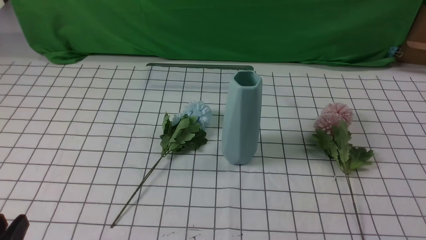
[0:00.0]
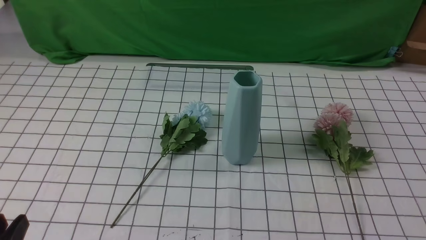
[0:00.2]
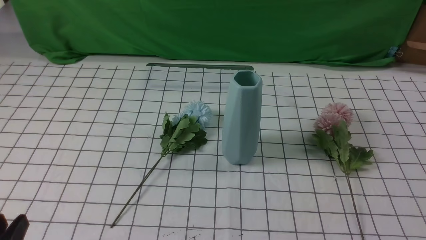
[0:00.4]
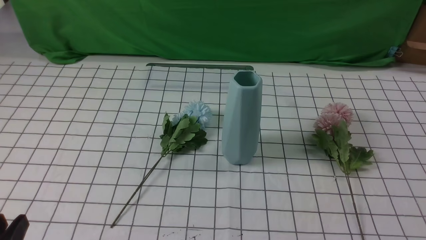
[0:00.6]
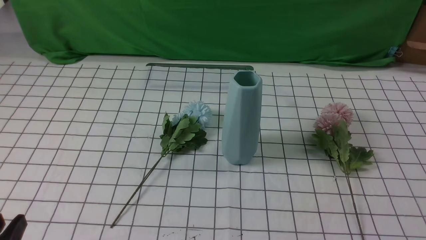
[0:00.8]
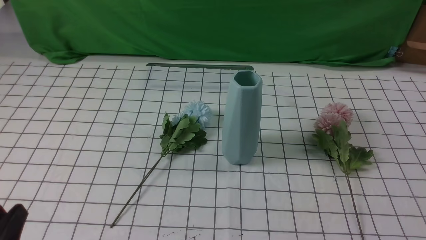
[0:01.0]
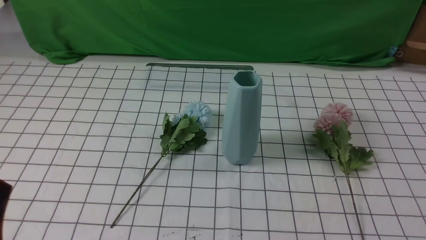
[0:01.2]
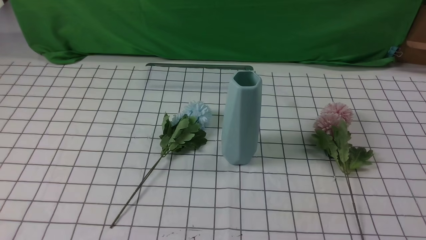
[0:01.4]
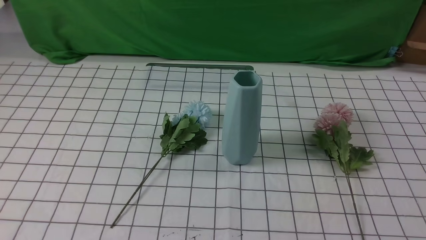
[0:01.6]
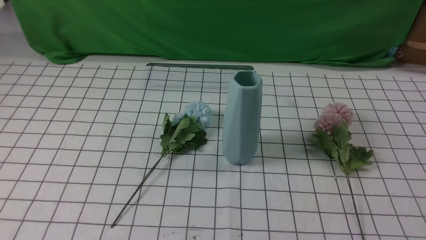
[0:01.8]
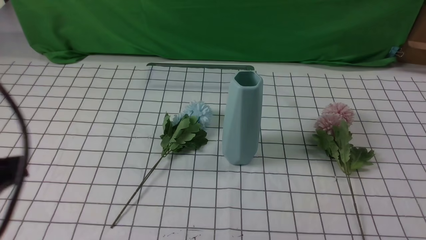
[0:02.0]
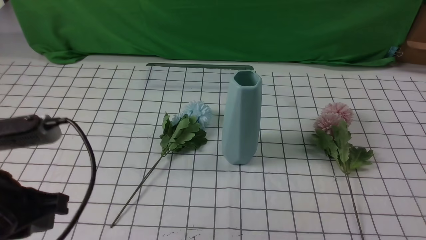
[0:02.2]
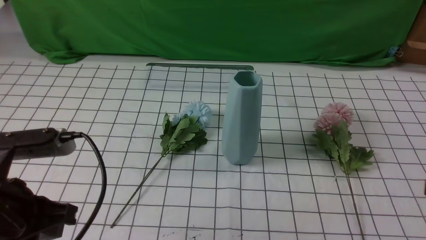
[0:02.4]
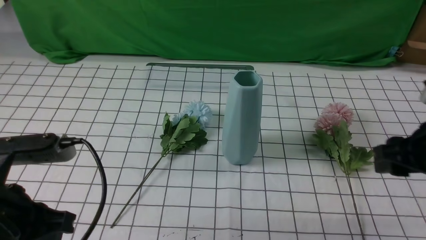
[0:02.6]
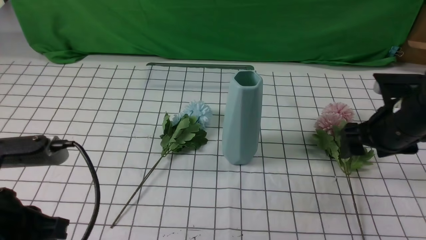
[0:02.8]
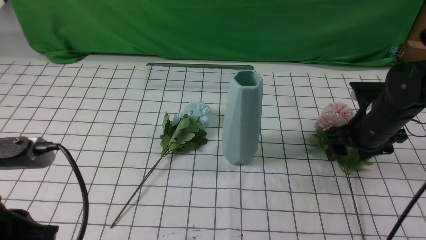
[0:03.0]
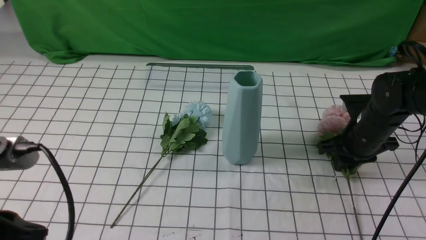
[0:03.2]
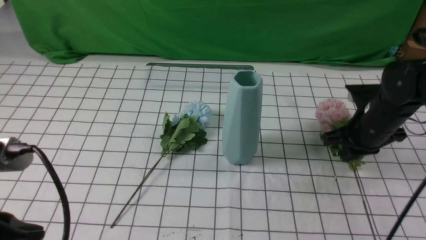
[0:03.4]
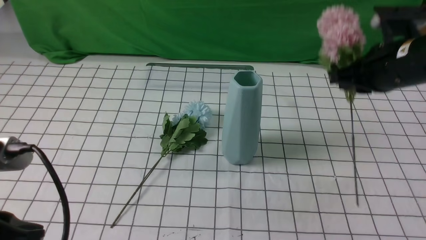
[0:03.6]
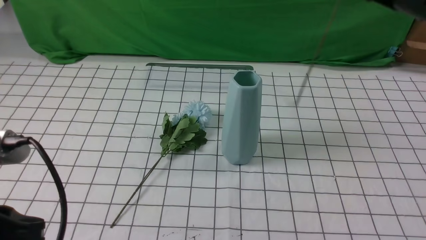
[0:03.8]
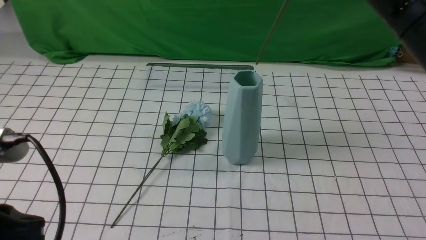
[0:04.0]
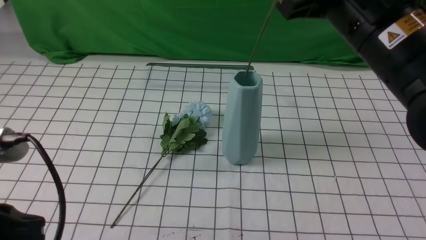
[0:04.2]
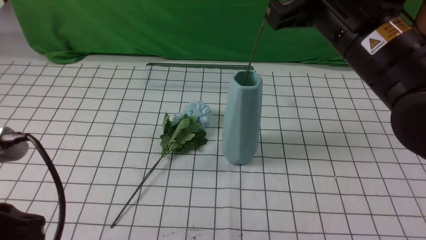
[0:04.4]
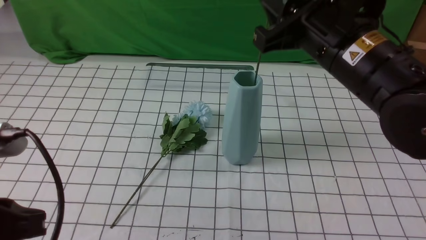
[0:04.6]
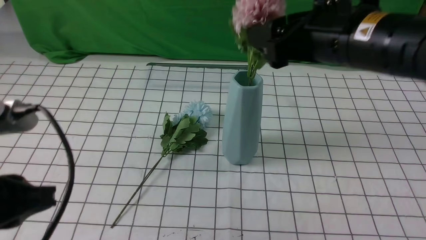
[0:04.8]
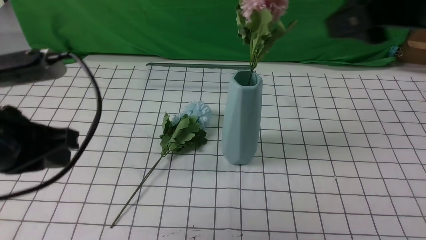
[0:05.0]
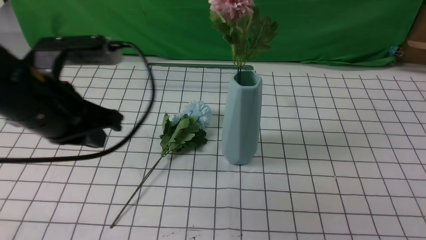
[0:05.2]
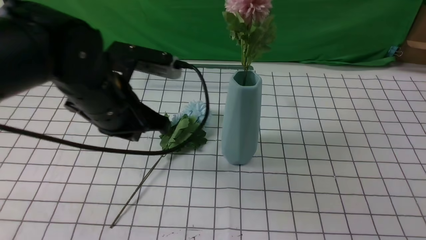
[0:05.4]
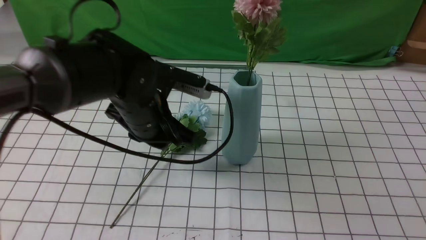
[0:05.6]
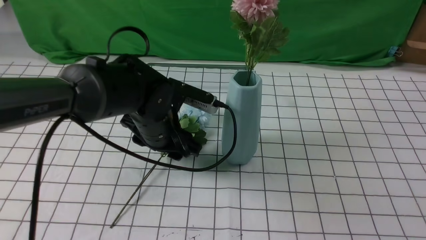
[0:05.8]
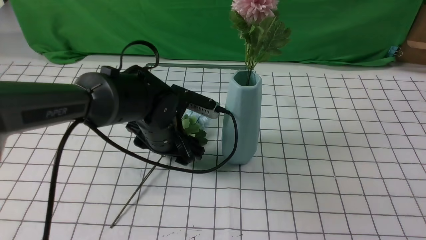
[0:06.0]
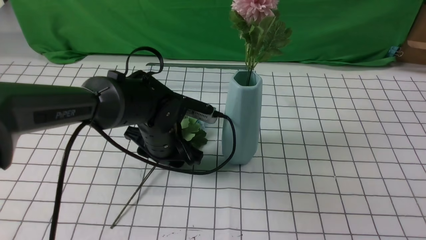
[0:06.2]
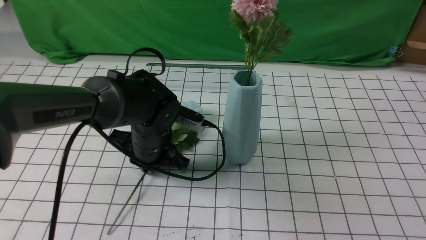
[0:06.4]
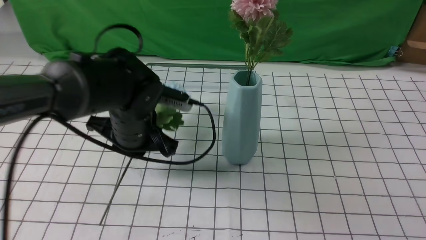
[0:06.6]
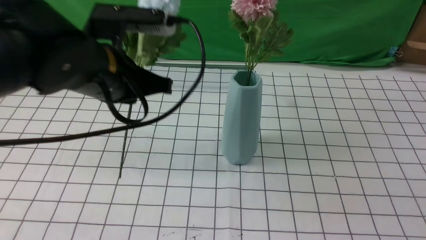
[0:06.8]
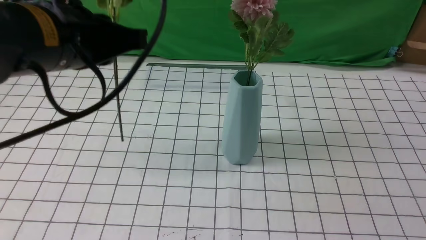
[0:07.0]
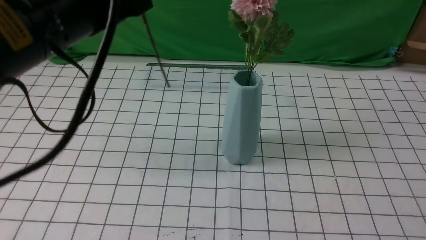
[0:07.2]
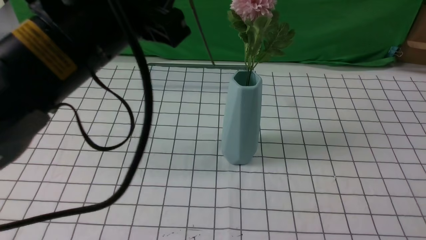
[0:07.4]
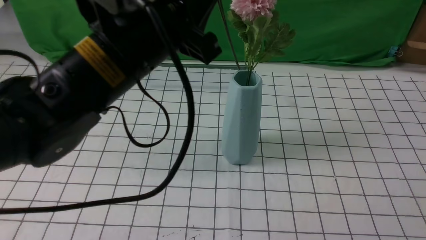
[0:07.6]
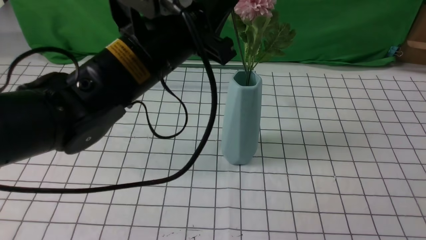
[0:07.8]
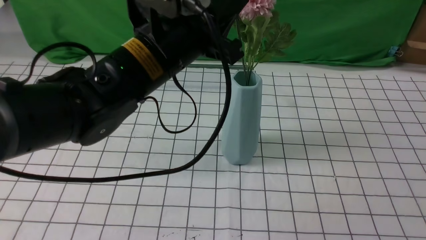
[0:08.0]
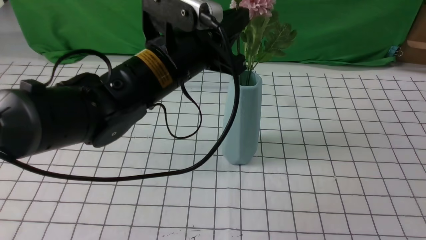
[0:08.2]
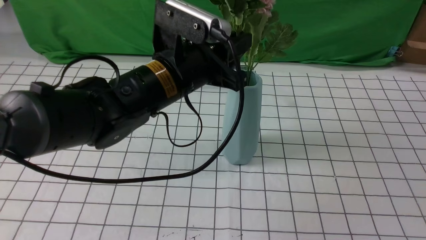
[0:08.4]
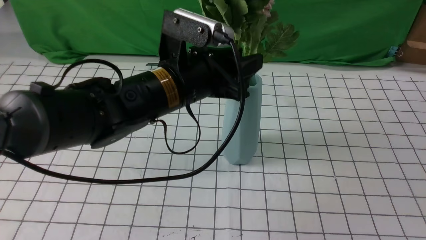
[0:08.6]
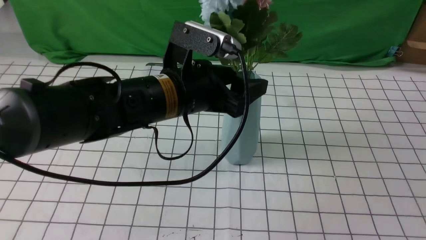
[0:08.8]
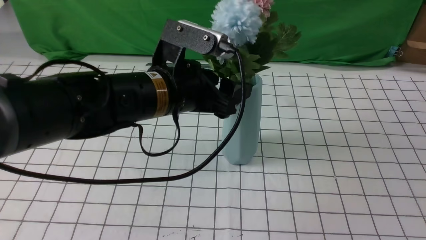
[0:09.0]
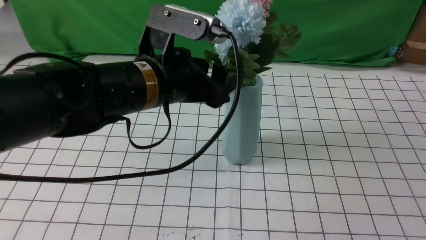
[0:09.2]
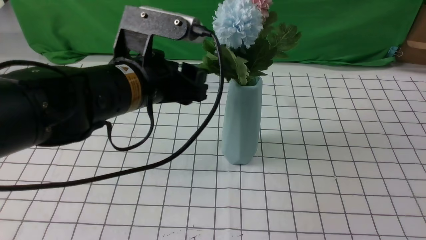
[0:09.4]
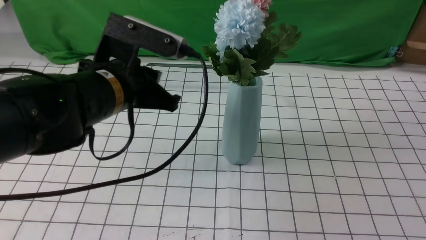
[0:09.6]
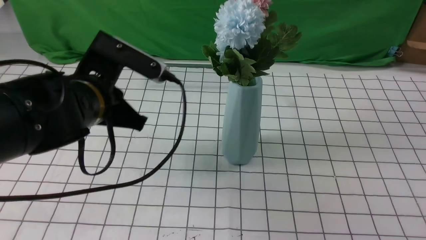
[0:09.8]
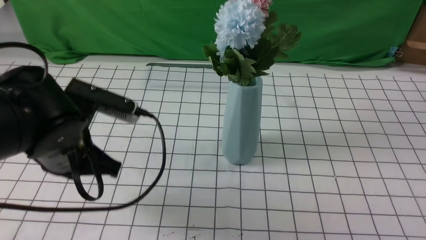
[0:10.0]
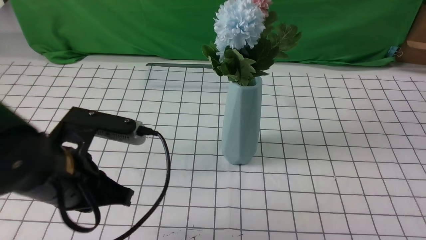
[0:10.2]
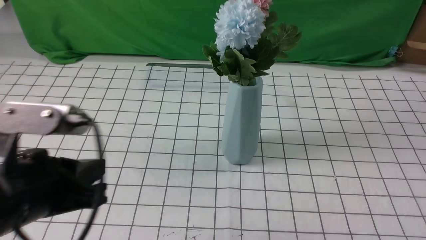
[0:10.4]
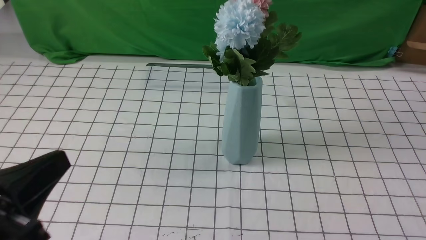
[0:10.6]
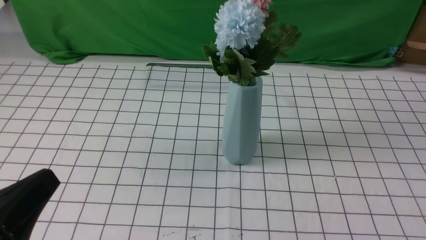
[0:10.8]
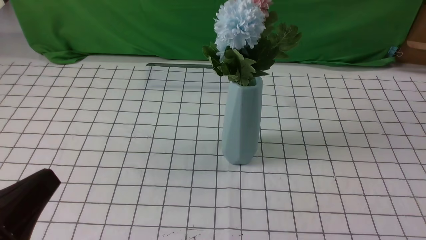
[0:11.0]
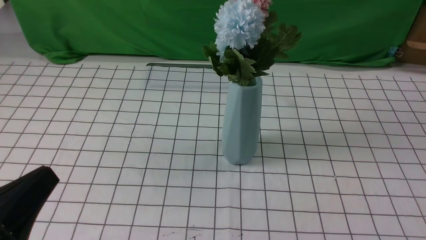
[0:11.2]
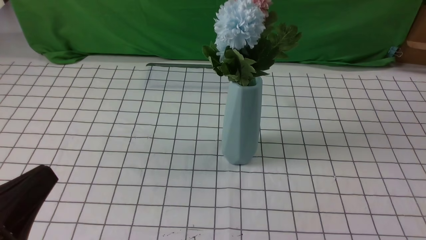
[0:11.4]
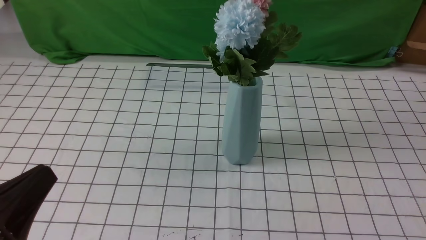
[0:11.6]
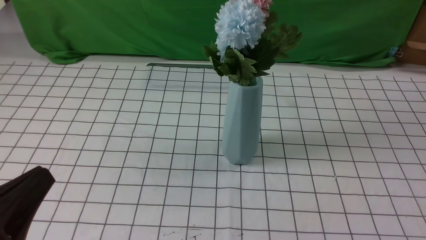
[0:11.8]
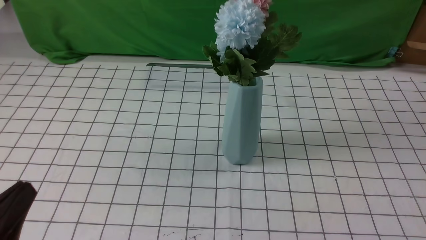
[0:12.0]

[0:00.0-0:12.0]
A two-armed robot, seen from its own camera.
Task of the whole recording: insert the flowers into the vase on the table with the white tablecloth.
Step, 0:00.0 to 0:03.2: use the right arm to grab a bunch of fresh flowers.
Step, 0:03.4 to 0:04.8: use the right arm to insert the flowers into the vase.
Step, 0:05.0 to 0:06.4: use the left arm to grab a bunch of fresh flowers.
Step, 0:06.6 to 0:09.0: use the left arm to insert the flowers into the vase.
0:01.6 to 0:03.0: The right gripper goes about 30 cm forward, and opens its fingers. Meanwhile the left gripper goes roughly 5 cm forward.
0:03.0 to 0:04.4: The right gripper moves upward, to the left and backward, approximately 25 cm, and closes up.
0:04.4 to 0:06.0: The left gripper travels forward, to the right and downward by roughly 30 cm, and opens. The right gripper shifts some 30 cm backward, to the right and upward, and opens and closes again.
0:06.0 to 0:07.6: The left gripper heads upward and backward, covering roughly 20 cm, and closes its fingers.
0:07.6 to 0:09.0: The left gripper shifts roughly 10 cm downward, and opens.
0:09.0 to 0:10.4: The right gripper travels downward by roughly 5 cm. The left gripper is displaced backward and to the left by some 20 cm, and closes up.
0:10.4 to 0:12.0: The right gripper ends up roughly 5 cm from where it was; the left gripper goes about 10 cm backward, downward and to the left.
